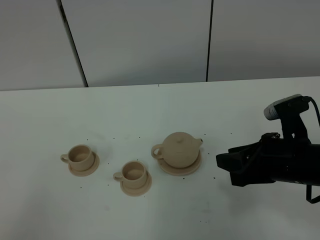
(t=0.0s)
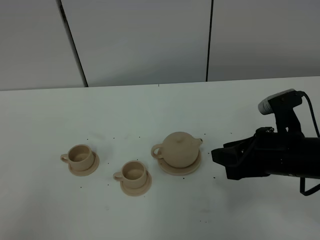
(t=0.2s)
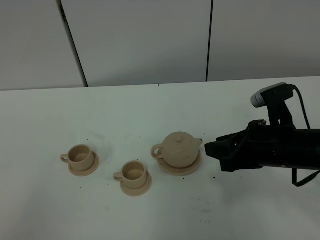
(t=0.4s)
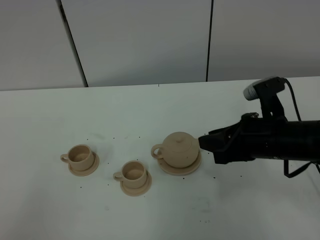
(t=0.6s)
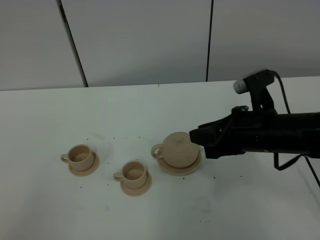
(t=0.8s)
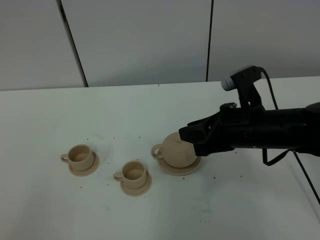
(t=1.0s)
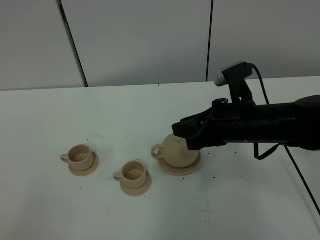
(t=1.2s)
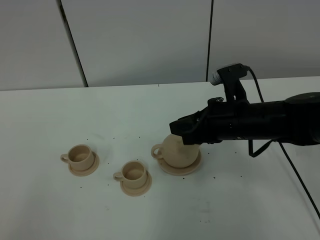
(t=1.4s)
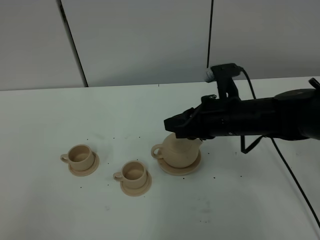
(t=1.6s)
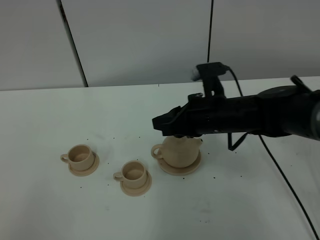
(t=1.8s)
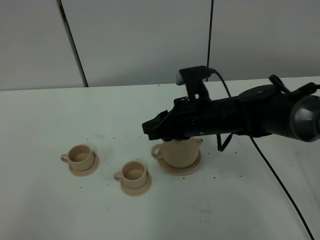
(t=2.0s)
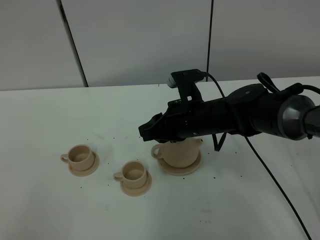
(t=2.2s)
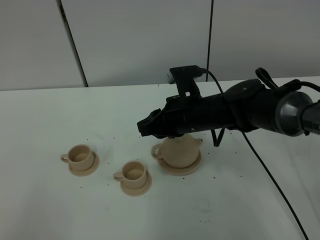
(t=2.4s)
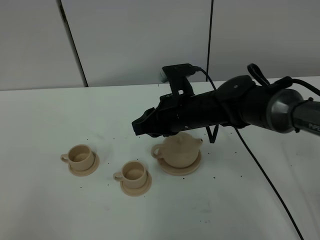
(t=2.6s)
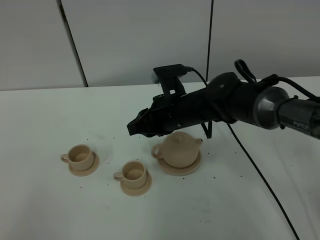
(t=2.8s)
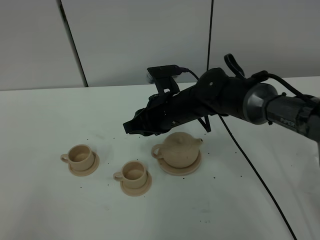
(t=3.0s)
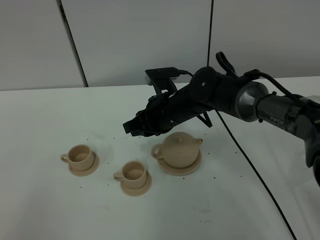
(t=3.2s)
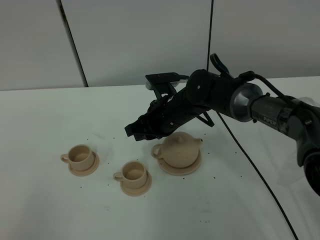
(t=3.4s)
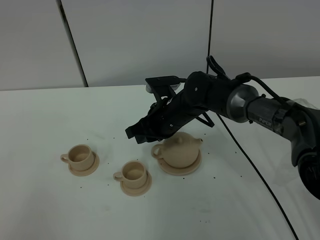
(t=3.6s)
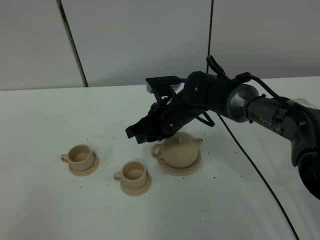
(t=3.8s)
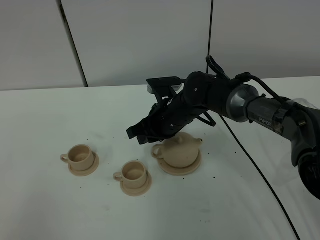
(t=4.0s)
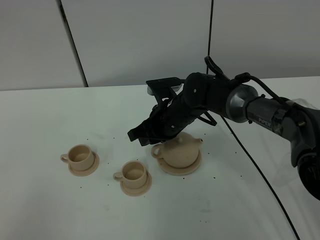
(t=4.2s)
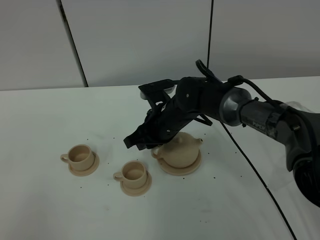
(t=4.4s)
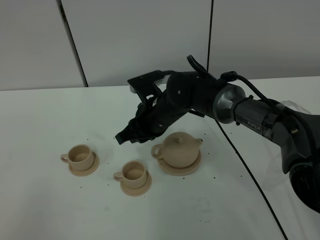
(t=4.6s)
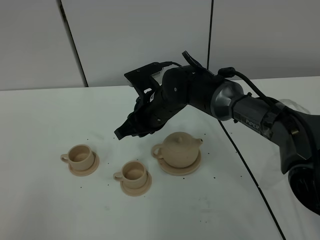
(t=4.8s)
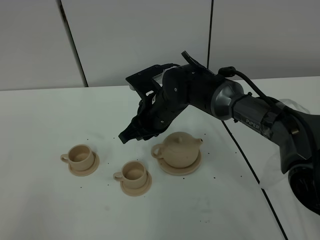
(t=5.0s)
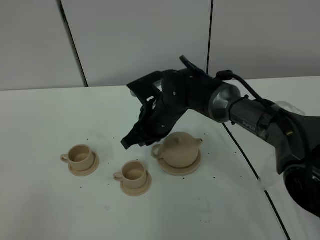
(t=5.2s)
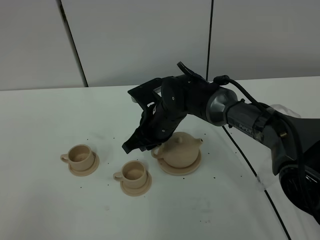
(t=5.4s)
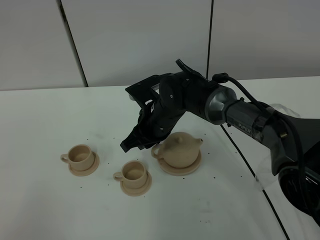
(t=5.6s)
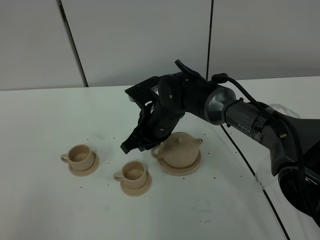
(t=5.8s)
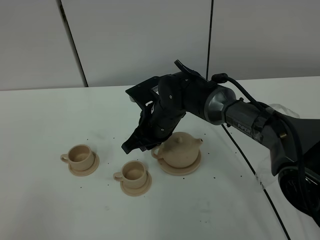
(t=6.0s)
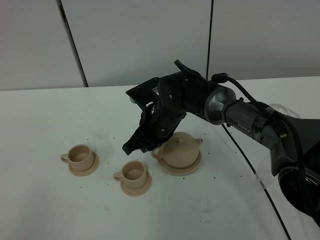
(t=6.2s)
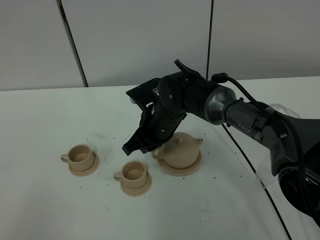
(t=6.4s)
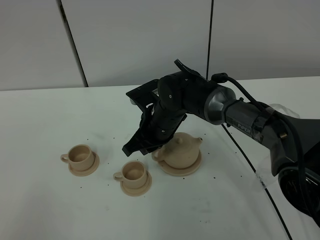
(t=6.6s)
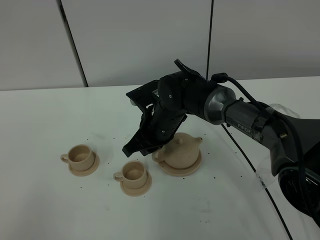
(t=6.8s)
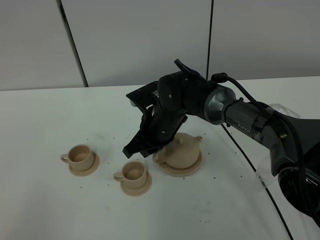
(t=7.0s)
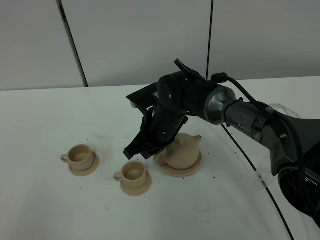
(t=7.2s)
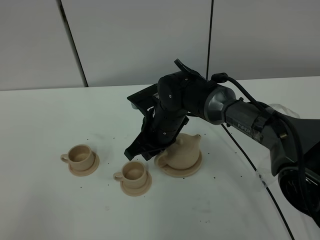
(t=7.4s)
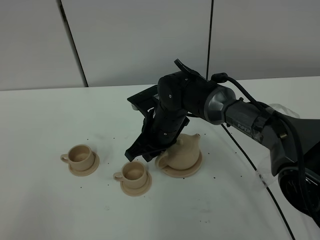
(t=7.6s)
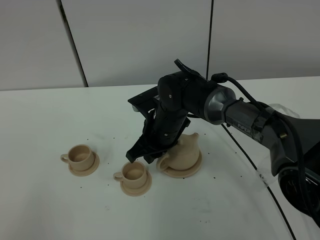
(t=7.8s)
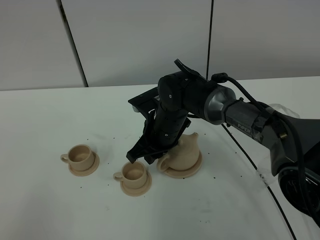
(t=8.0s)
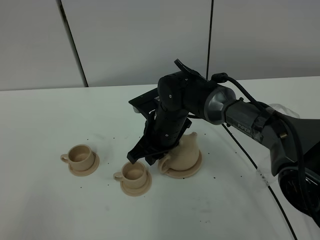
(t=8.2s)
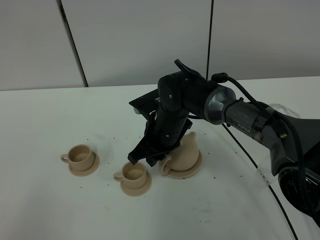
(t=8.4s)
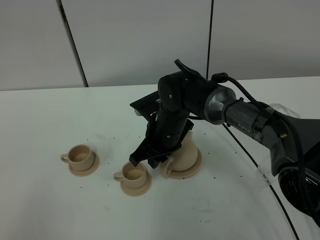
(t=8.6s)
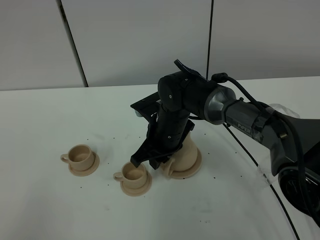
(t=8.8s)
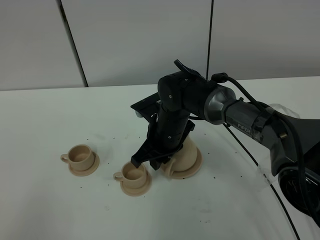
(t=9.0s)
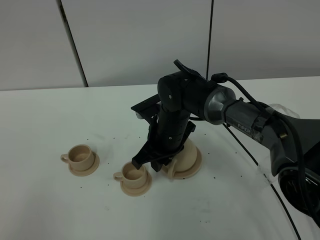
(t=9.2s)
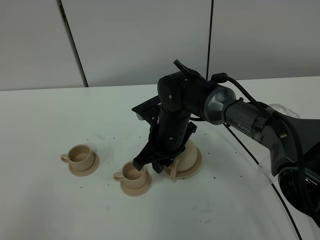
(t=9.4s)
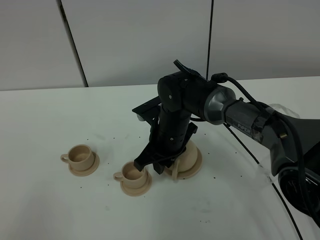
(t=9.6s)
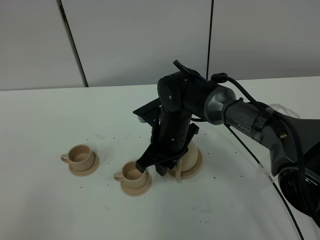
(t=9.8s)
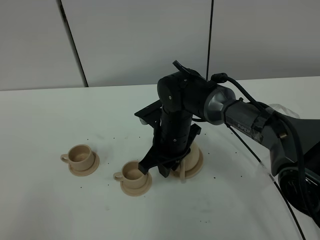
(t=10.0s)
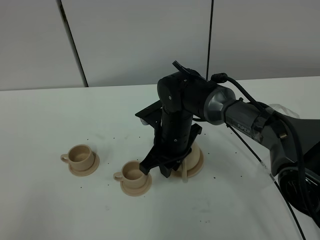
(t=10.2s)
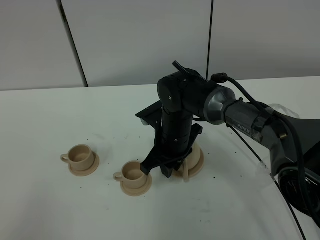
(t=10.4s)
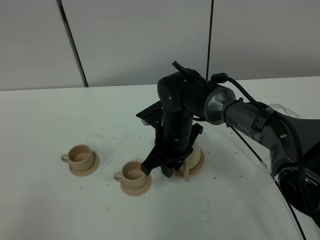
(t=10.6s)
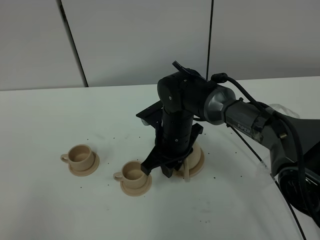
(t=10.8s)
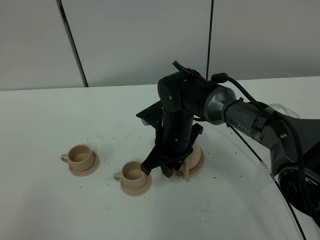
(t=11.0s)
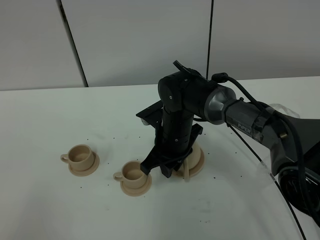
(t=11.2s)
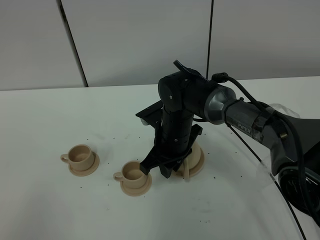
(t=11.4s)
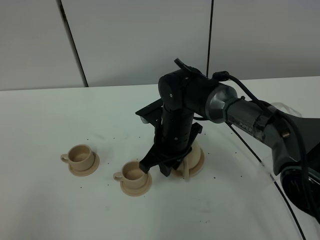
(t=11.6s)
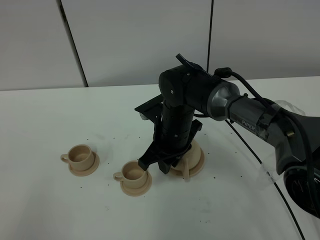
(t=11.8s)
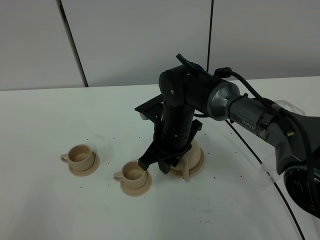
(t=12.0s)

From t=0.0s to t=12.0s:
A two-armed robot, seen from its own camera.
Task of the whole recording: grasp the brown teapot and pour the tea into the two brown teacups one by one, put the brown teapot back in its original place.
From t=0.0s to t=1.6s: The right gripper moves forward and to the left, roughly 15 cm.
From t=1.6s to t=3.0s: The right gripper travels to the left and forward by about 10 cm.
From t=3.0s to t=4.4s: The grippers move only a little.
From t=4.4s to t=7.6s: The grippers stay close to where they were, moving slightly.
From t=7.6s to t=12.0s: The grippers stay close to where they were, moving slightly.

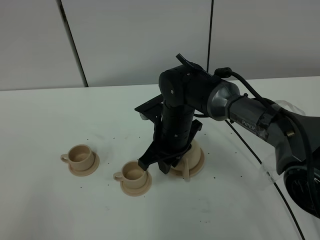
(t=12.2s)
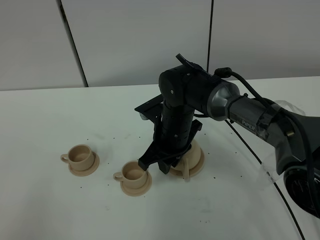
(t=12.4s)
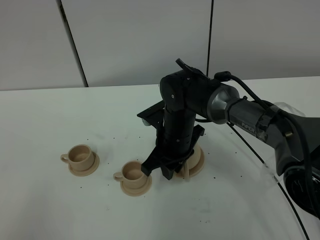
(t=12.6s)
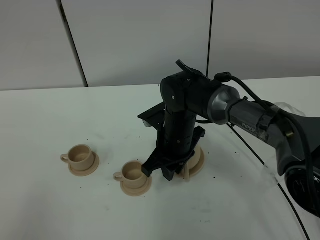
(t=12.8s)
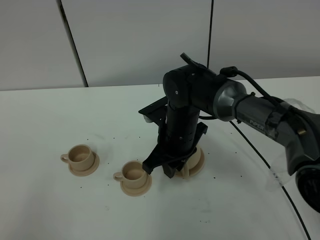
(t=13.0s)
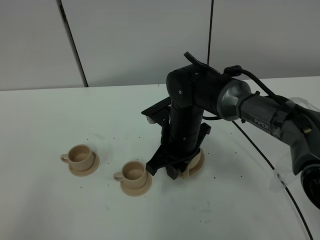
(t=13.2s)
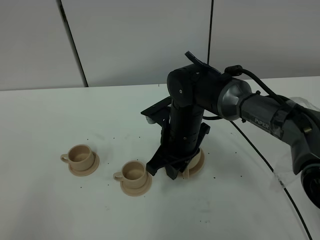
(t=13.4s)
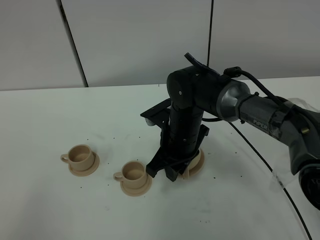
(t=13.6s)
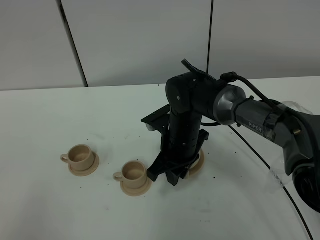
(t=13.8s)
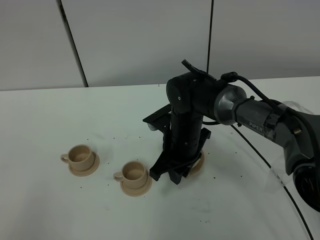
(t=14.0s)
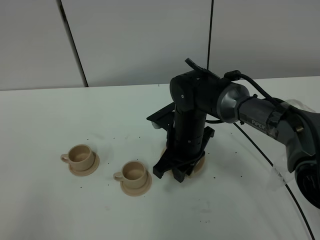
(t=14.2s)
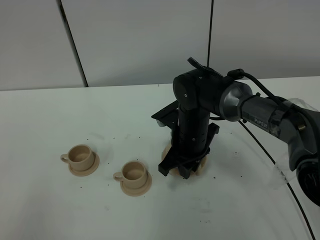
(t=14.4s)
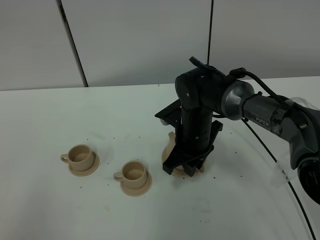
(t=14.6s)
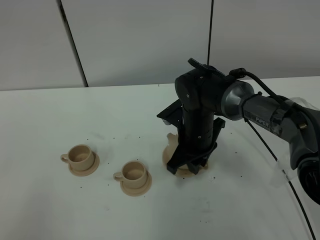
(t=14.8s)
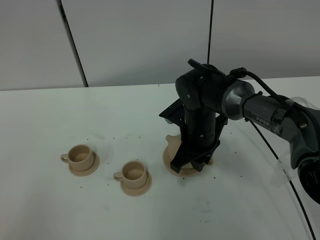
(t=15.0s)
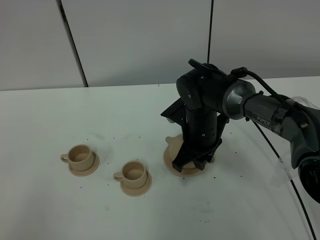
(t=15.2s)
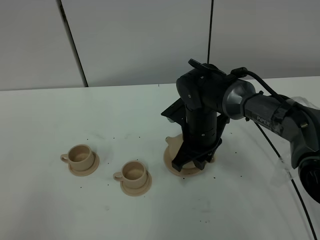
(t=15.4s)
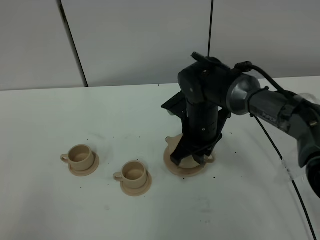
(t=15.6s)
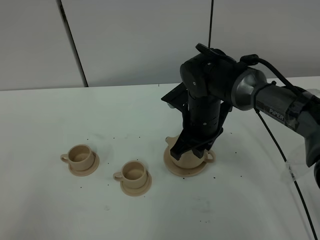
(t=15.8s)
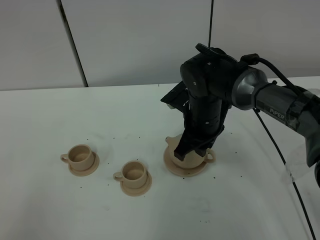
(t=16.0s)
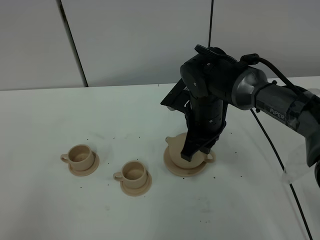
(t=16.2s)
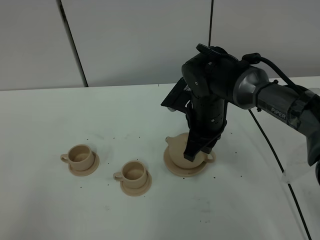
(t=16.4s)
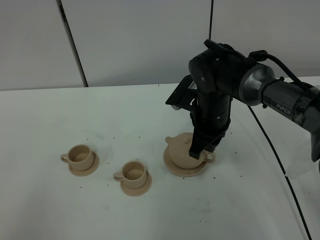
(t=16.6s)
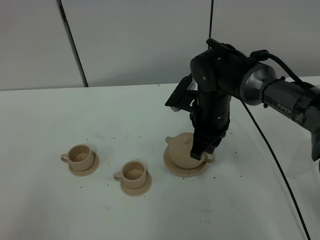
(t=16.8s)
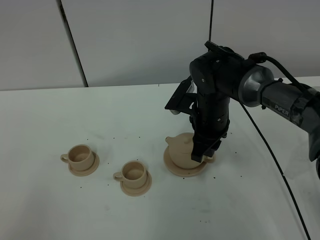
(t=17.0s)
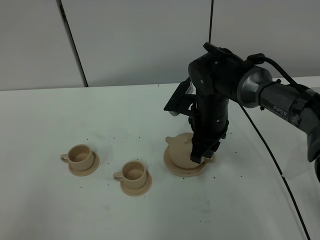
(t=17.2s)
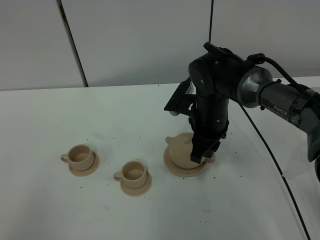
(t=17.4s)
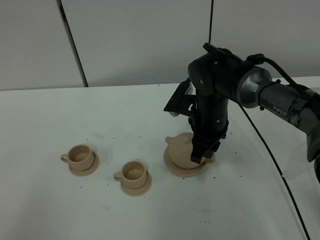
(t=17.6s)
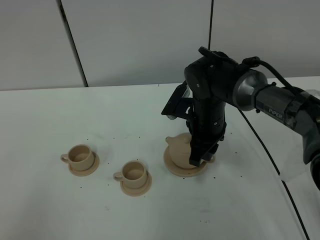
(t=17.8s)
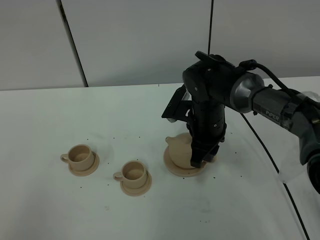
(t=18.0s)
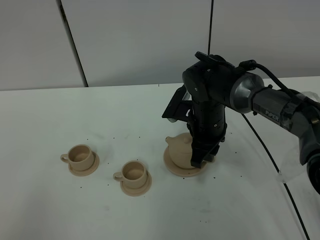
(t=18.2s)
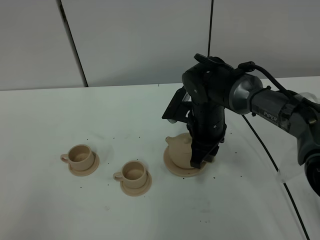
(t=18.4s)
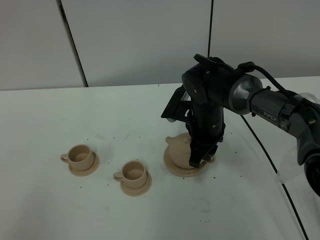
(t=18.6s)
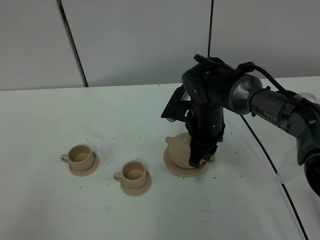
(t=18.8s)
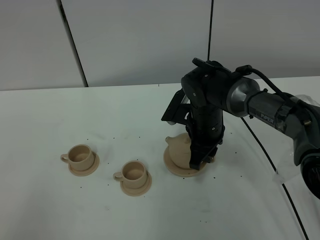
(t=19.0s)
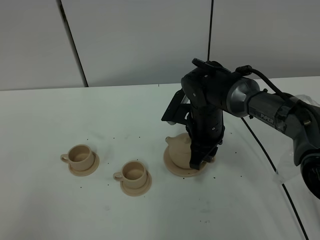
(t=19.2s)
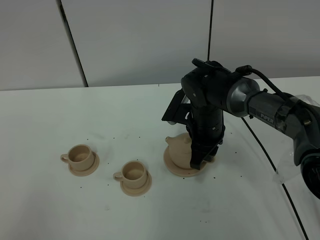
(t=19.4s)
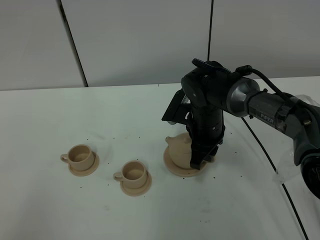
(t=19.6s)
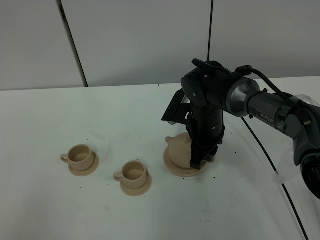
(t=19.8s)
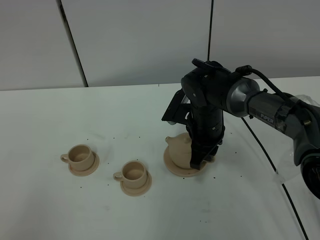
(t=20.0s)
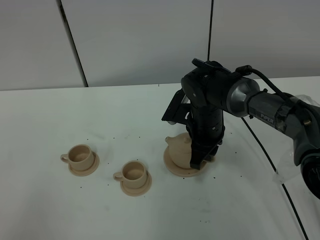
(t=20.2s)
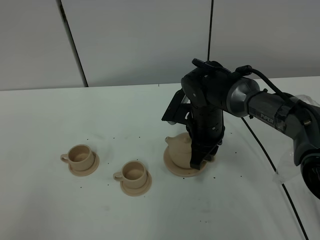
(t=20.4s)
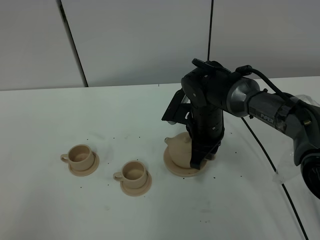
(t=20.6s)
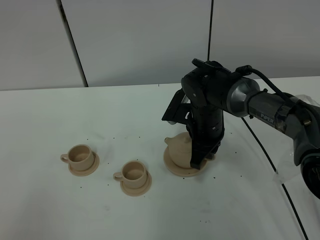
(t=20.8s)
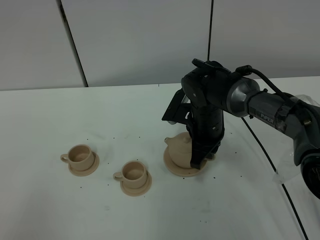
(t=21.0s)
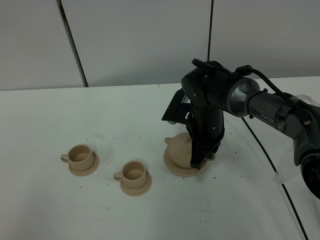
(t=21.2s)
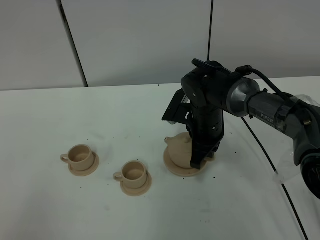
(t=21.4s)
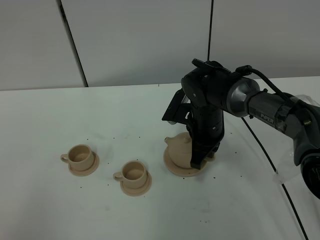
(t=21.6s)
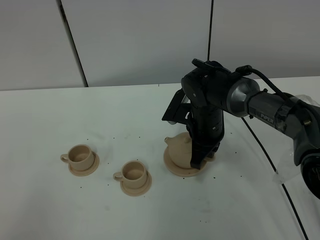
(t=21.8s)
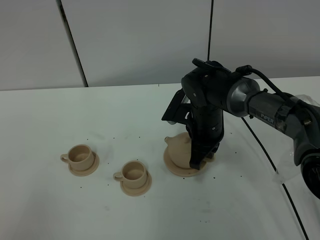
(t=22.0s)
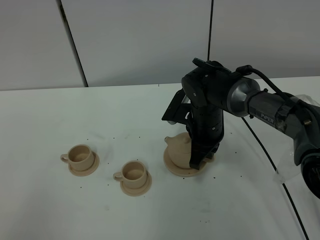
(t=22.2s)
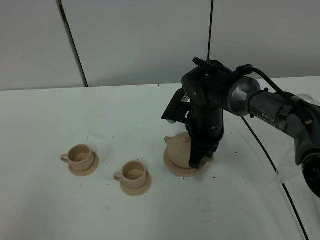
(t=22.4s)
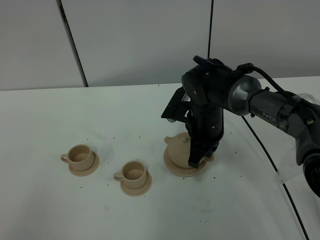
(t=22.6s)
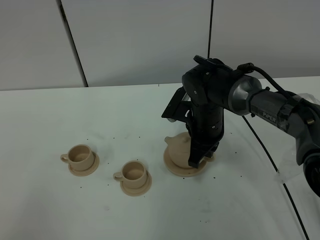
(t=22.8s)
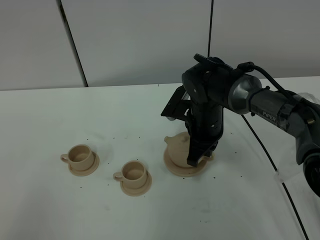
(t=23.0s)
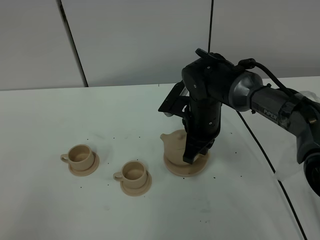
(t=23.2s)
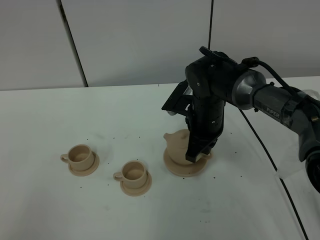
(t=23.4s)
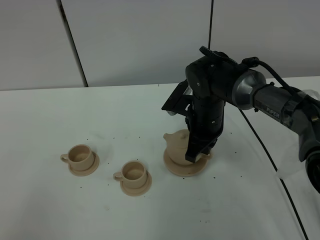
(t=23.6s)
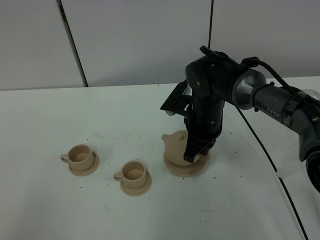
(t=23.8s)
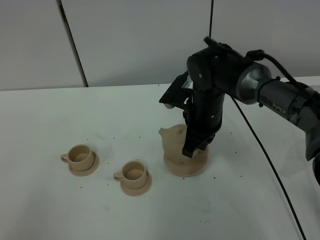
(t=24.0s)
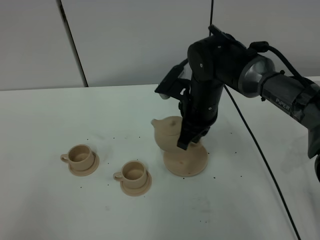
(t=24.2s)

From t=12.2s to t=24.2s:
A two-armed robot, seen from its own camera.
Task of the whole recording: grasp the brown teapot and pour the tea into the two brown teacups one by one, put the brown teapot back in its original place.
Step, from t=12.2s to t=23.2s: Pick up the teapot with the right gripper.
From t=12.2s to t=15.2s: There are only small adjustments of the grippers.
From t=15.2s to t=16.6s: There are only small adjustments of the grippers.
From t=16.6s to t=18.2s: The right gripper opens up.
From t=18.2s to t=19.8s: The grippers move only a little.
From t=21.2s to t=22.6s: The two grippers keep their place.
From t=22.6s to t=24.2s: The right gripper is displaced upward by roughly 5 cm.
